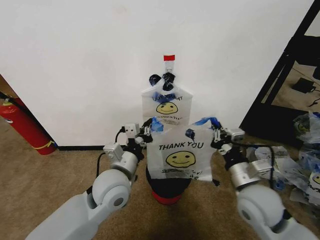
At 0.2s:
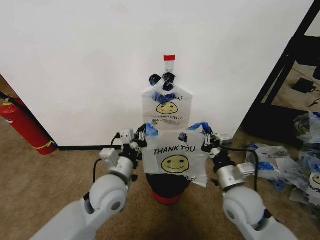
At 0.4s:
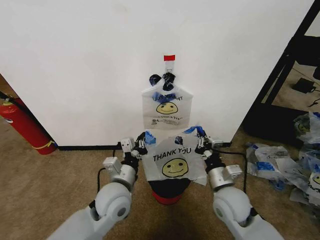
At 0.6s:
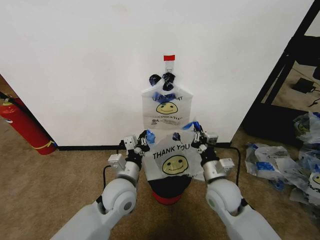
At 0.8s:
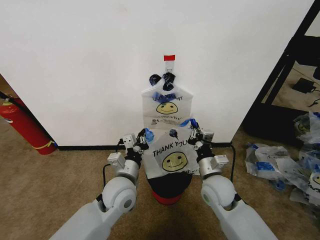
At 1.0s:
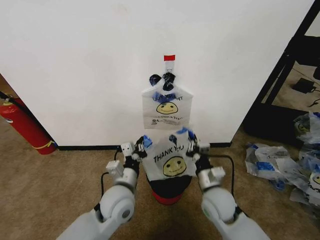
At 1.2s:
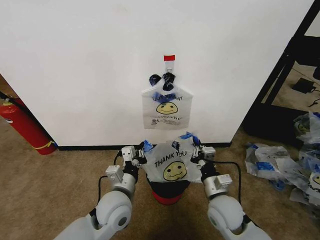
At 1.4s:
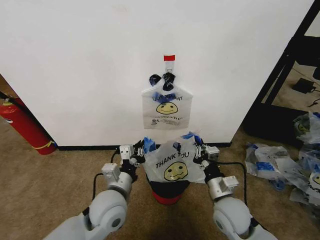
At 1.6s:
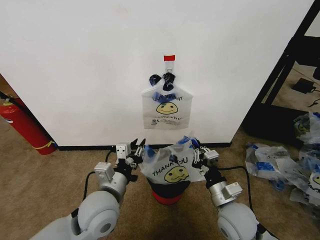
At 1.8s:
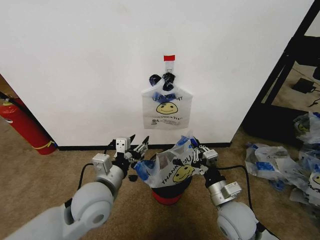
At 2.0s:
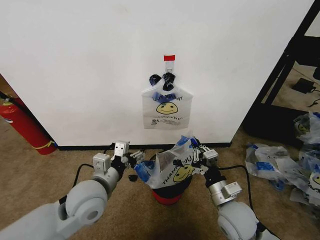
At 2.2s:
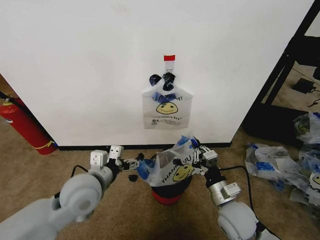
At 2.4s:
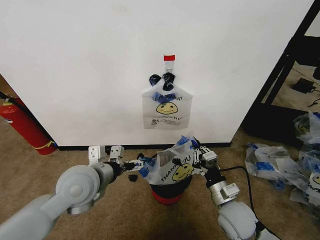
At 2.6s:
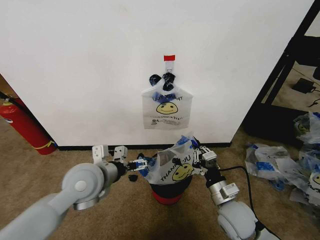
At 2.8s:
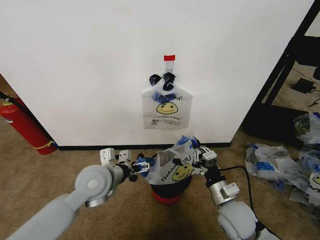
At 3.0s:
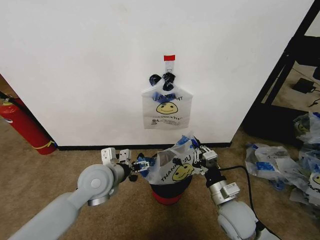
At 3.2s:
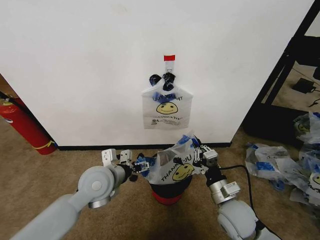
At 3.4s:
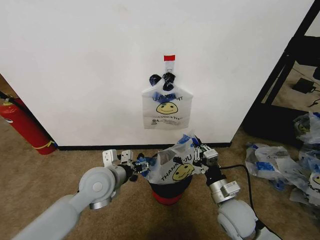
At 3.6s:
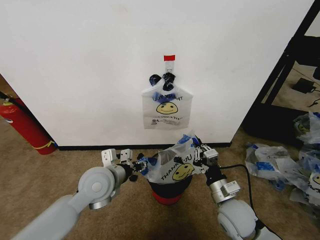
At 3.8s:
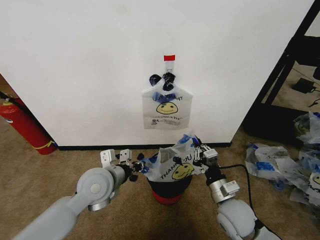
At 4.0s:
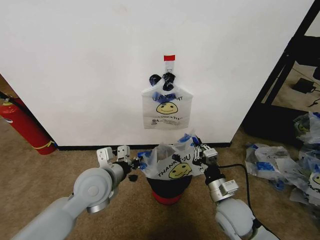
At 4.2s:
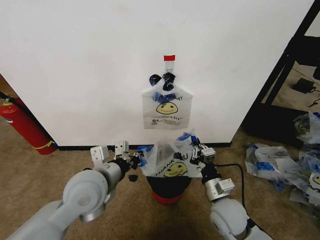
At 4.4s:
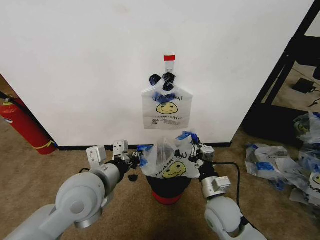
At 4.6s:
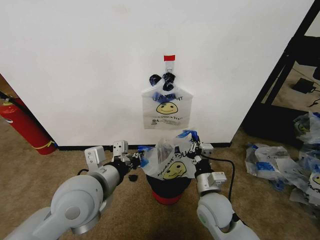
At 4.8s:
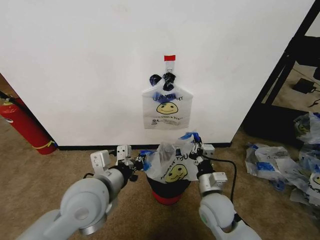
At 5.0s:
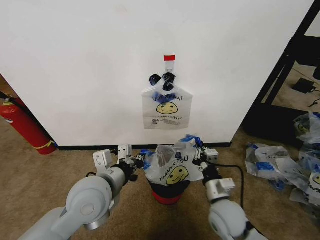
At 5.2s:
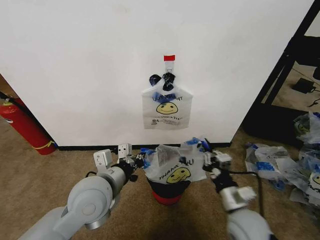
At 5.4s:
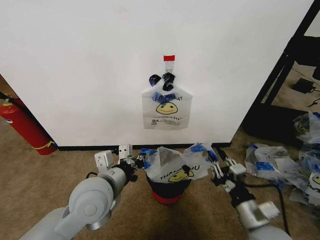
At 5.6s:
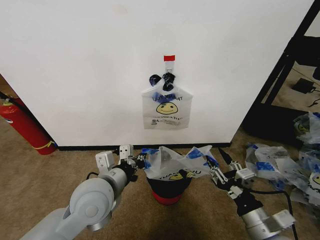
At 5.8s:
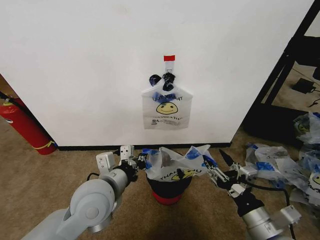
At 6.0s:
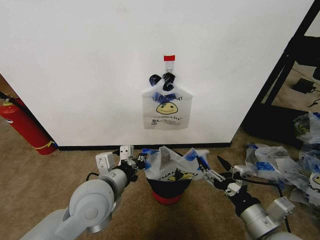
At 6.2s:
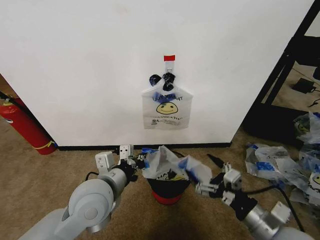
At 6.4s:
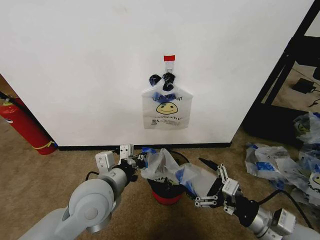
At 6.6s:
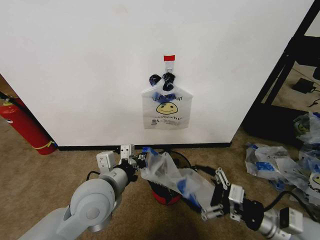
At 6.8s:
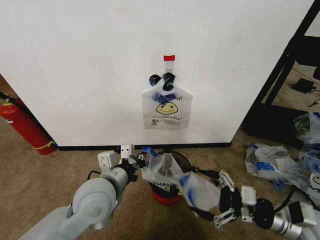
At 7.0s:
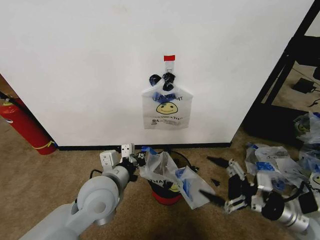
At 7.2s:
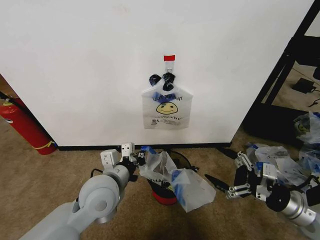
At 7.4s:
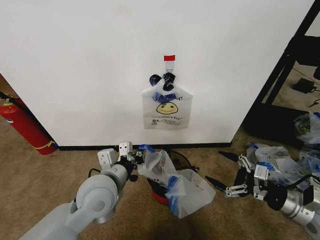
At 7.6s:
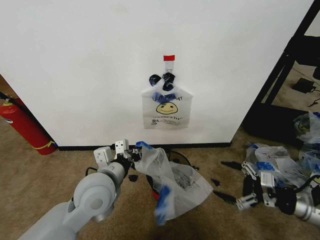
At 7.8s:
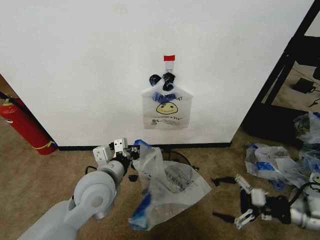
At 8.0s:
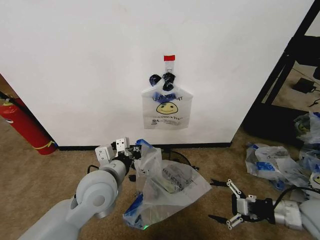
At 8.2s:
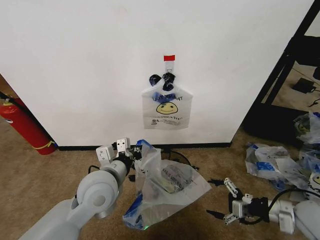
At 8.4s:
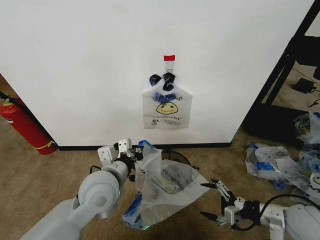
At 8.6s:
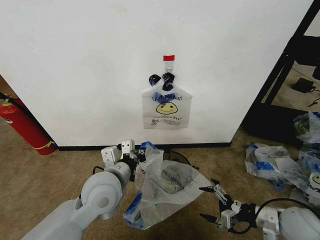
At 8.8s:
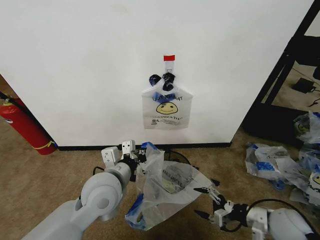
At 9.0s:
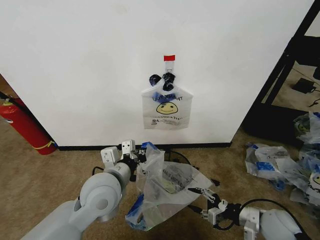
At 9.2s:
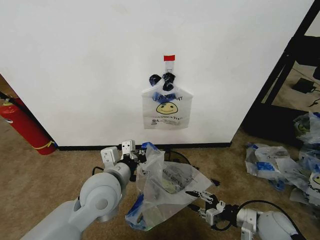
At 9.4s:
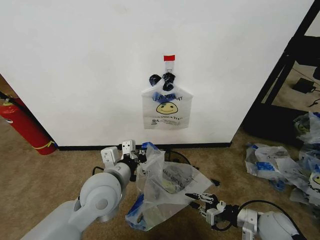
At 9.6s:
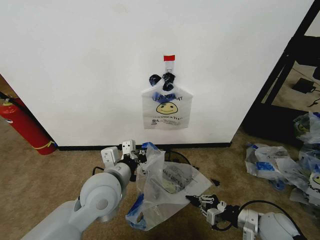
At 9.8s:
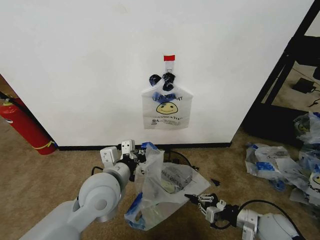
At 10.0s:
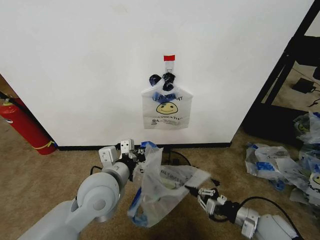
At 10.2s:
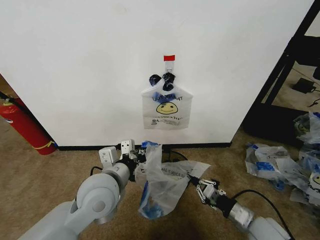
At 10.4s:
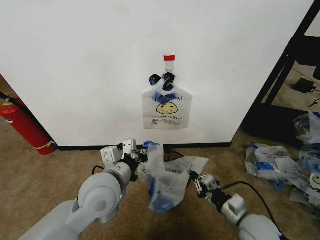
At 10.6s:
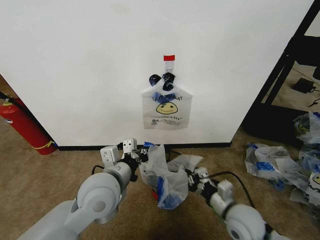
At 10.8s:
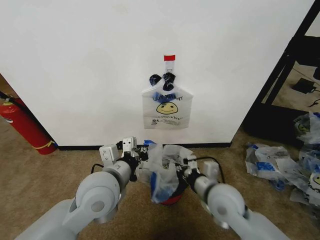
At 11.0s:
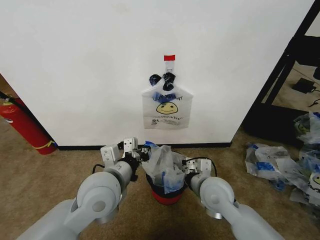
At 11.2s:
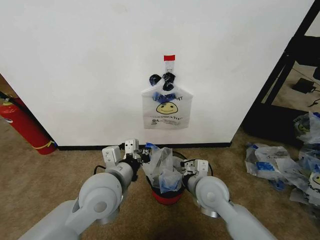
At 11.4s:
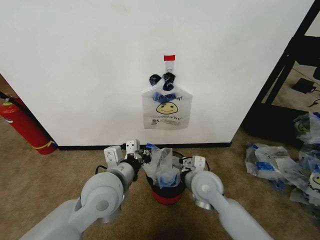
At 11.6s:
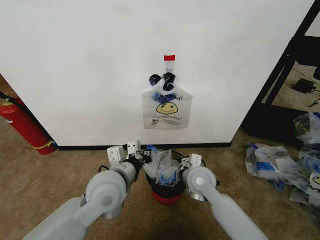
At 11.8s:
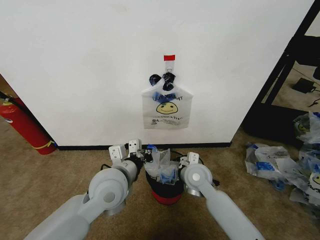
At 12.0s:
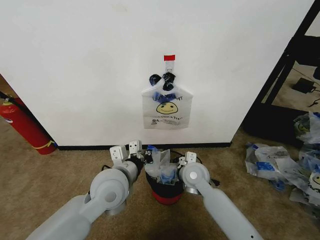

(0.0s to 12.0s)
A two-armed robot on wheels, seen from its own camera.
Task of the whole recording: Pick up the garbage bag from the wall and place it over the trash bin.
0.0s - 1.6s: The left gripper ends up approximately 5 cm from where it was, and opens; the right gripper moves downward, approximately 10 cm.
1.6s - 3.0s: The left gripper travels forward by approximately 10 cm, and opens up.
3.0s - 4.4s: The left gripper heads upward and backward, covering about 10 cm, and closes up.
4.4s - 6.0s: The right gripper travels backward, upward and to the right by approximately 15 cm, and opens.
6.0s - 7.6s: The right gripper shifts approximately 20 cm to the right and forward.
7.6s - 9.0s: The right gripper moves downward and to the left, roughly 15 cm.
9.0s - 10.4s: The right gripper travels to the left by approximately 10 cm, and closes its fingers.
10.4s - 12.0s: The right gripper is displaced forward and to the left by approximately 20 cm.

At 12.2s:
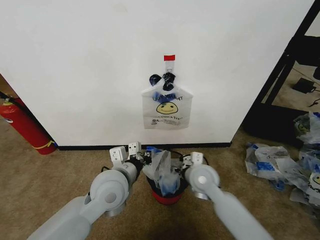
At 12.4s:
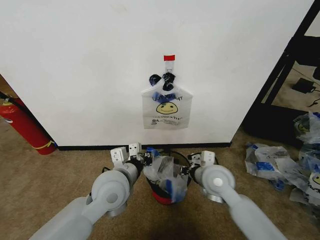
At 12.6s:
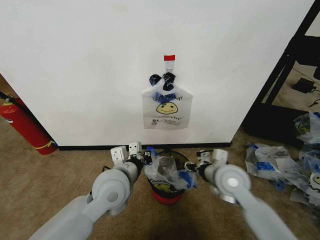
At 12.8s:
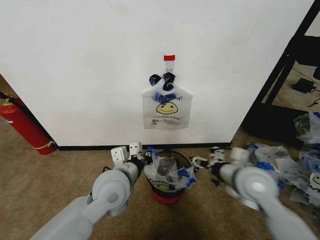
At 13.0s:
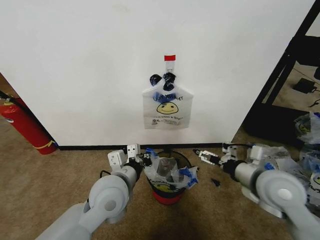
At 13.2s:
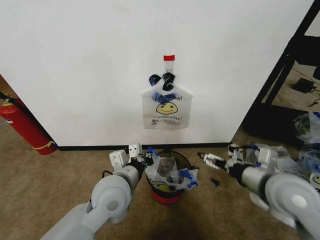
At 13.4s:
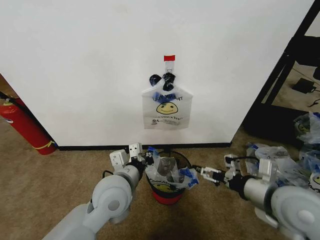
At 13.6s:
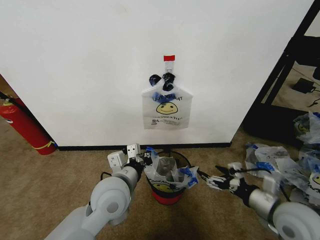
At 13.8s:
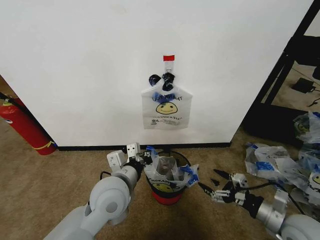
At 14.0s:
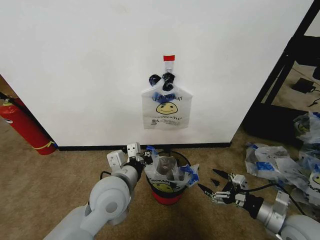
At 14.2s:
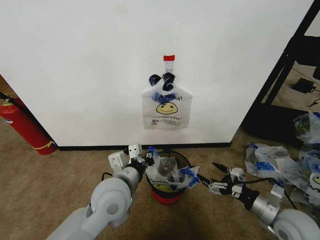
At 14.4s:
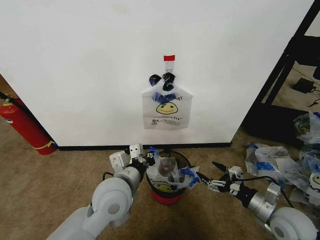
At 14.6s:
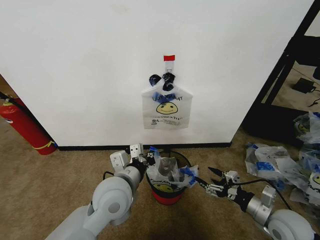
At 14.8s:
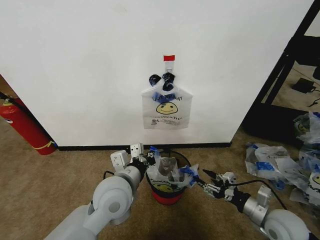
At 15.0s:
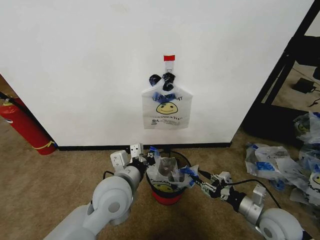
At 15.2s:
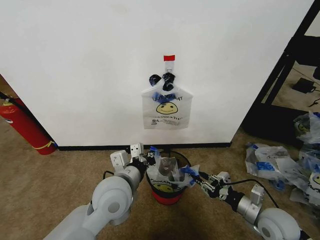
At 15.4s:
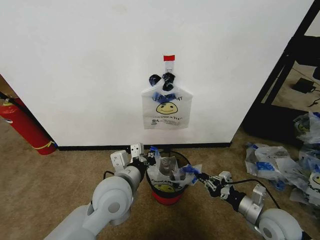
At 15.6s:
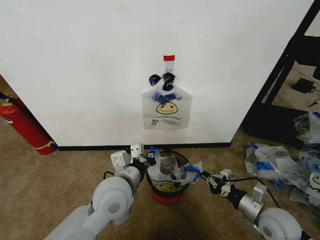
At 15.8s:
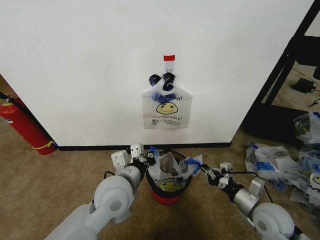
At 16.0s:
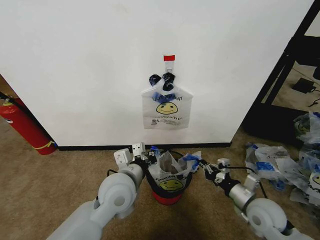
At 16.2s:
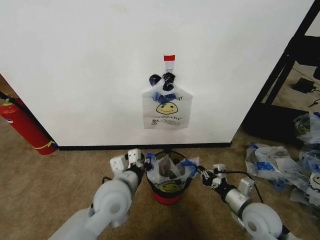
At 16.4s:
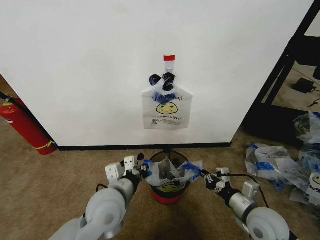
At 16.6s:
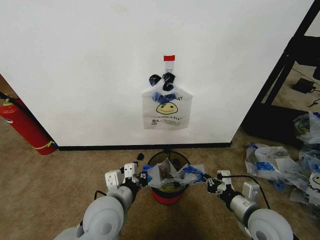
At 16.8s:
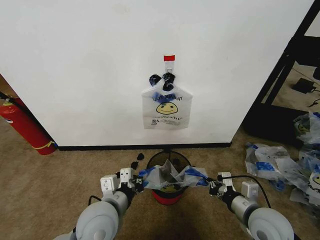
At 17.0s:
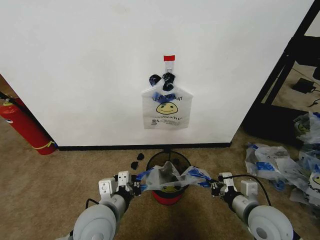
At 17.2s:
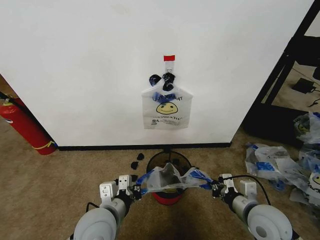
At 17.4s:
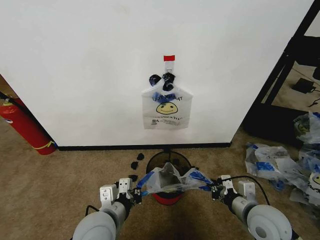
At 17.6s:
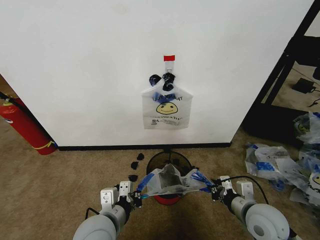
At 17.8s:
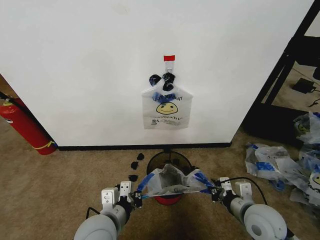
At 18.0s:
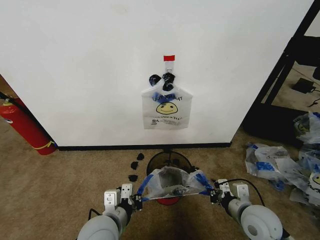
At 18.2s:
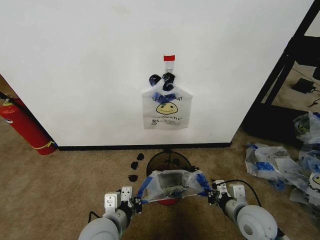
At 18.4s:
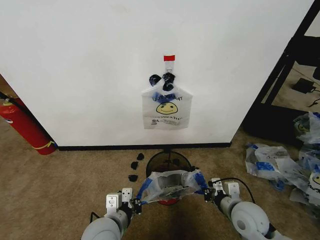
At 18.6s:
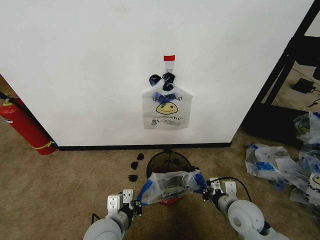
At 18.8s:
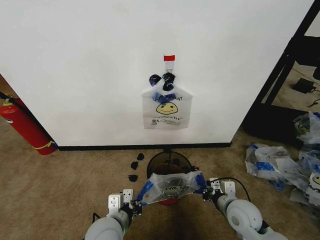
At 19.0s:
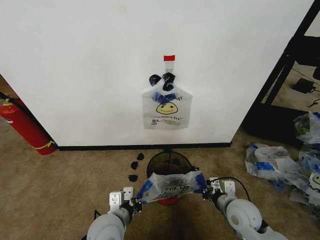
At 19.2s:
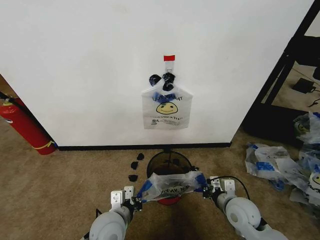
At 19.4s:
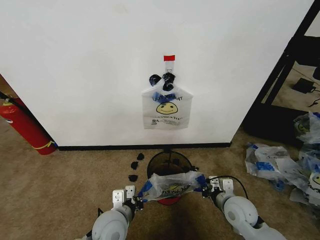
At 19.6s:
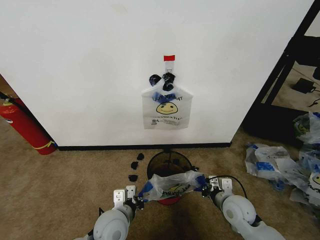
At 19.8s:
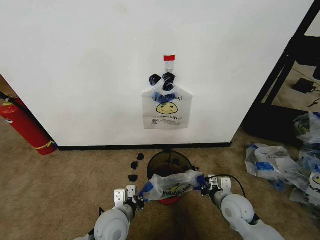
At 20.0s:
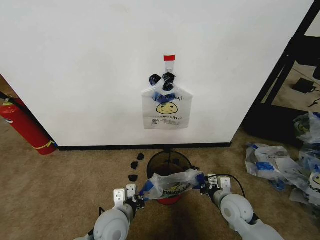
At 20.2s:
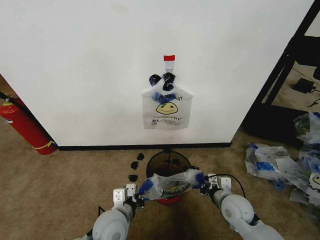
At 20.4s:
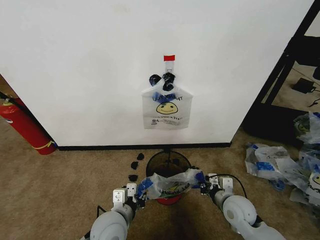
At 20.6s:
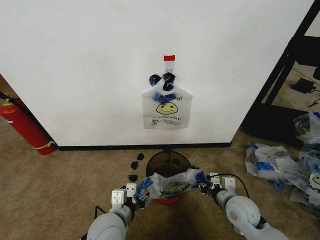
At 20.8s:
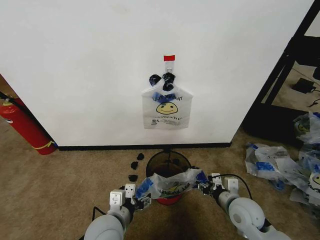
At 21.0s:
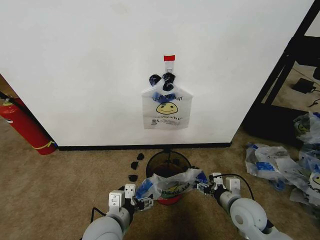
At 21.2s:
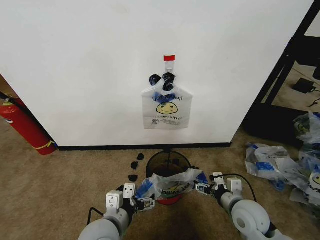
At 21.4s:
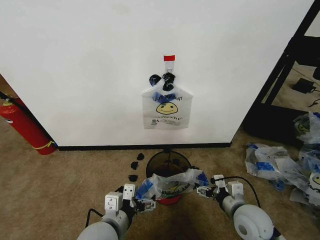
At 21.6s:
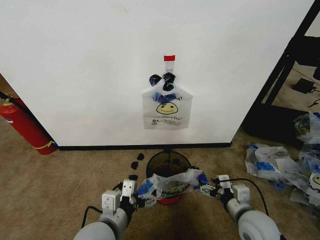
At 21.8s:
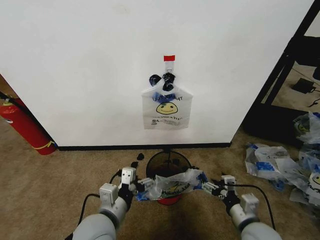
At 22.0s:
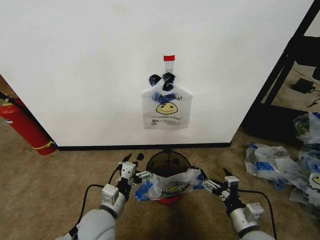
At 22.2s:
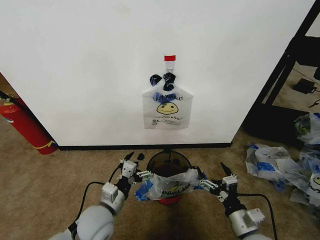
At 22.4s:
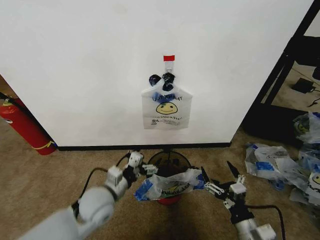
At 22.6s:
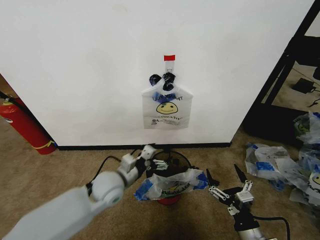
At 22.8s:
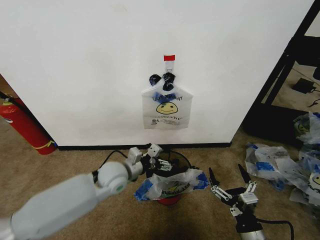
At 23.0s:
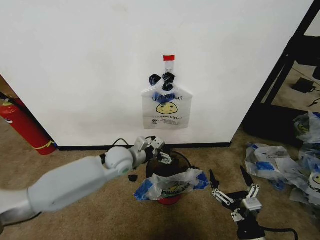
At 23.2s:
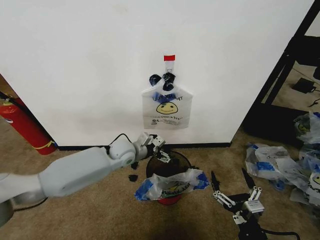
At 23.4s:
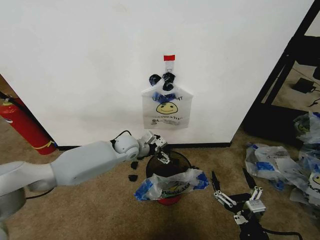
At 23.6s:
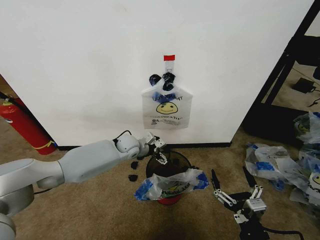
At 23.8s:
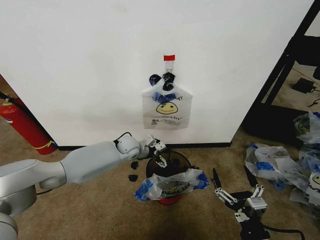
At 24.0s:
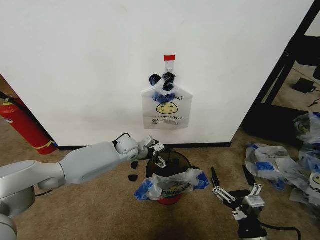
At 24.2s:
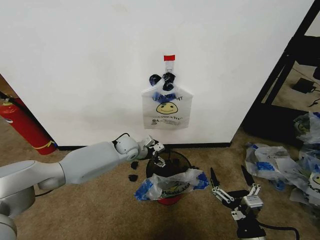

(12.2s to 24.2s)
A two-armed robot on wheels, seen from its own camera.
Task of the whole recording: Pick up the garbage bag from the wall and place it over the trash bin.
12.2s - 13.8s: The right gripper moves to the right and backward, roughly 25 cm, and opens up.
13.8s - 15.2s: The right gripper moves about 5 cm, and closes its fingers.
15.2s - 16.6s: The right gripper travels to the left by about 5 cm. Meanwhile the left gripper changes place by some 5 cm.
16.6s - 18.2s: The left gripper ends up some 5 cm from where it was.
18.2s - 19.8s: The right gripper is displaced downward and forward by approximately 10 cm, while the left gripper is displaced downward by about 5 cm.
19.8s - 21.2s: The right gripper shifts by approximately 5 cm, and opens up. Meanwhile the left gripper moves upward, some 5 cm, and opens up.
21.2s - 22.6s: The right gripper goes roughly 15 cm backward. The left gripper heads forward, covering roughly 15 cm.
22.6s - 24.2s: The left gripper goes some 20 cm forward.
